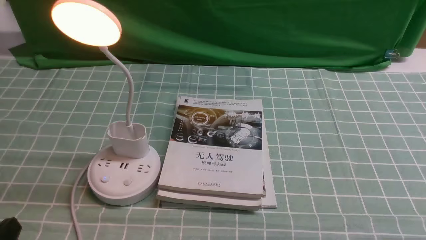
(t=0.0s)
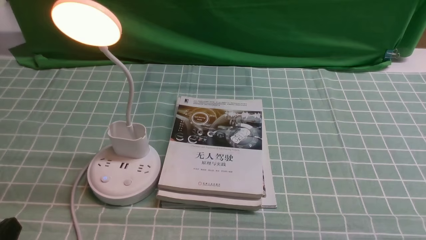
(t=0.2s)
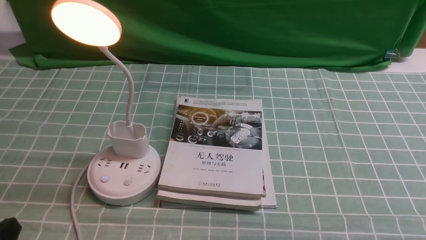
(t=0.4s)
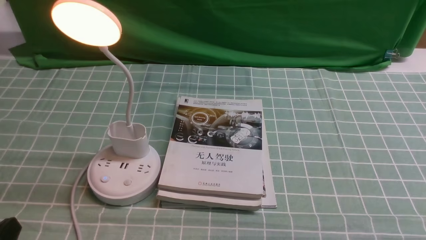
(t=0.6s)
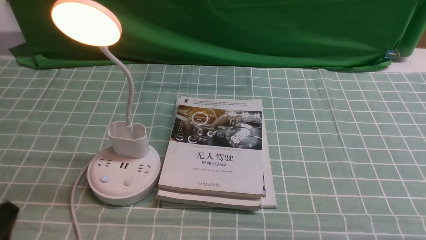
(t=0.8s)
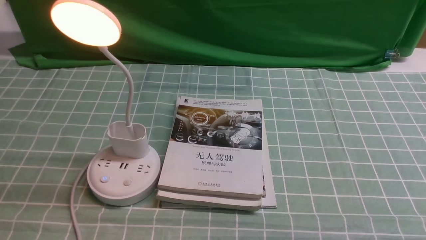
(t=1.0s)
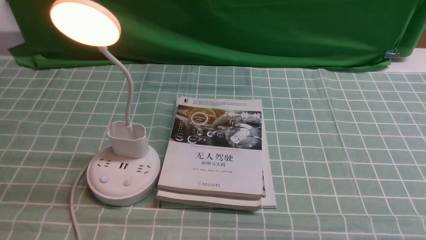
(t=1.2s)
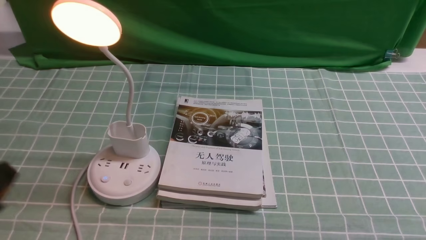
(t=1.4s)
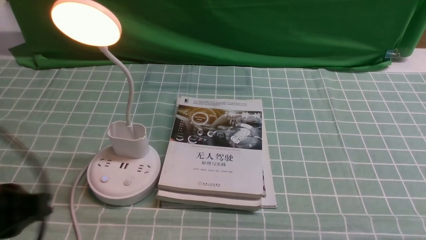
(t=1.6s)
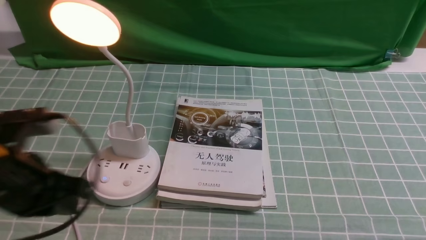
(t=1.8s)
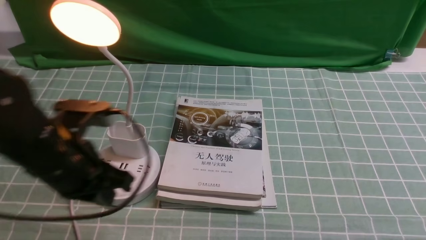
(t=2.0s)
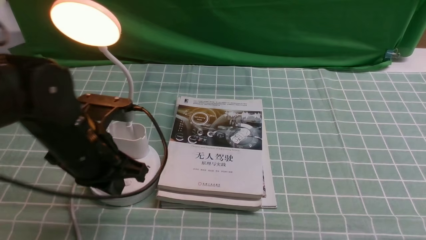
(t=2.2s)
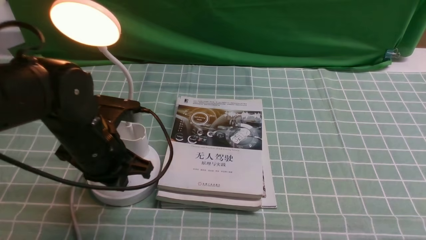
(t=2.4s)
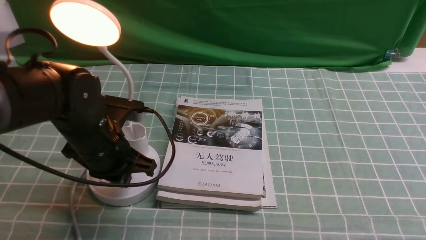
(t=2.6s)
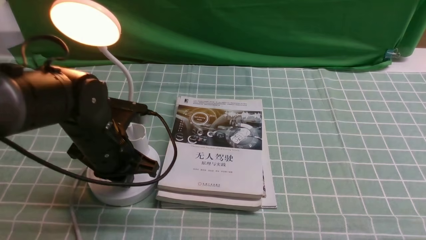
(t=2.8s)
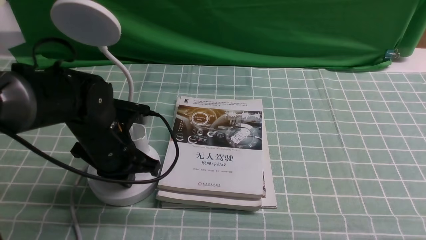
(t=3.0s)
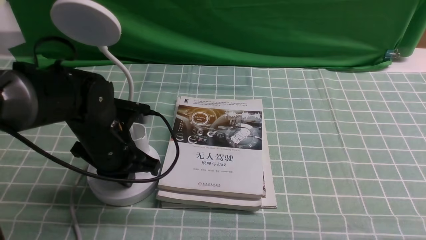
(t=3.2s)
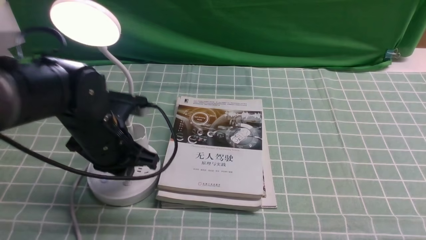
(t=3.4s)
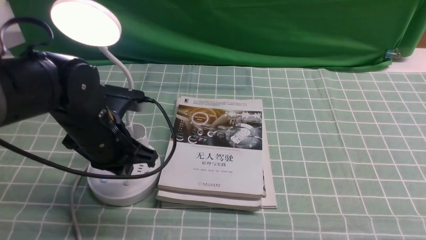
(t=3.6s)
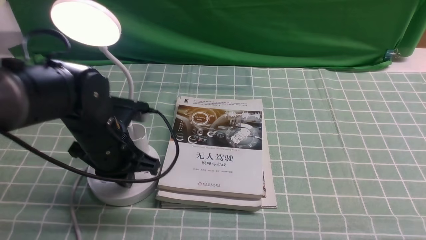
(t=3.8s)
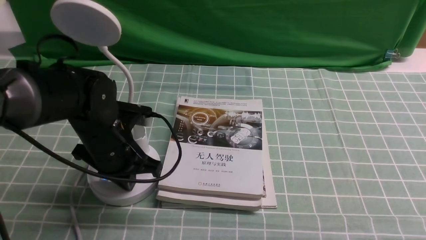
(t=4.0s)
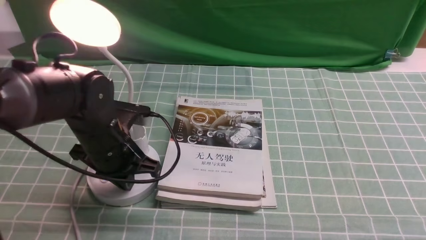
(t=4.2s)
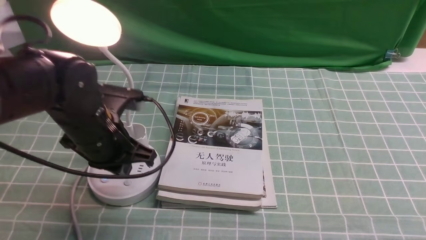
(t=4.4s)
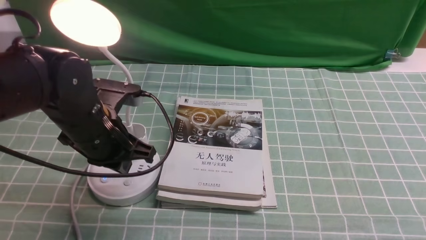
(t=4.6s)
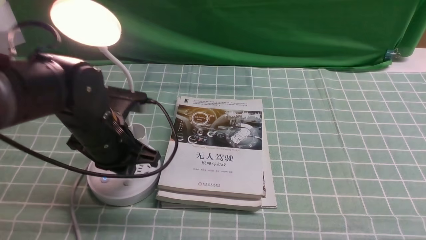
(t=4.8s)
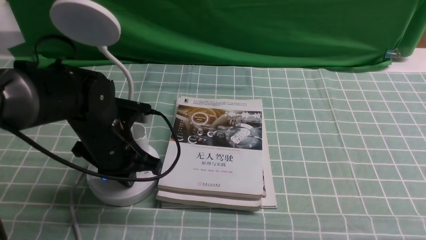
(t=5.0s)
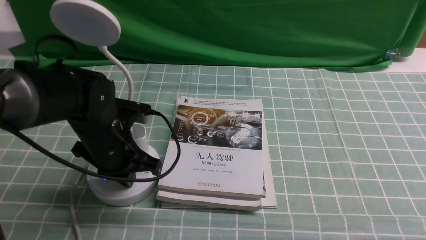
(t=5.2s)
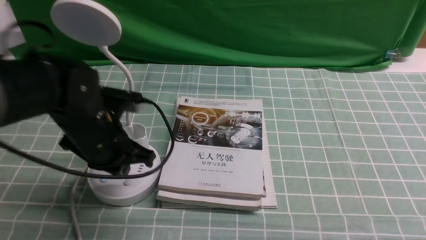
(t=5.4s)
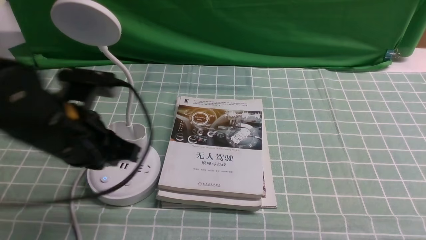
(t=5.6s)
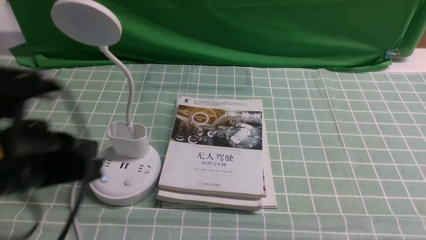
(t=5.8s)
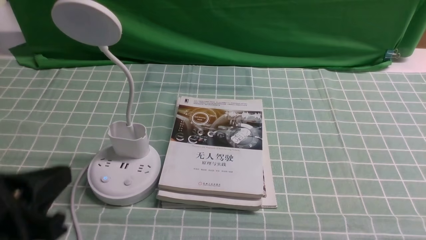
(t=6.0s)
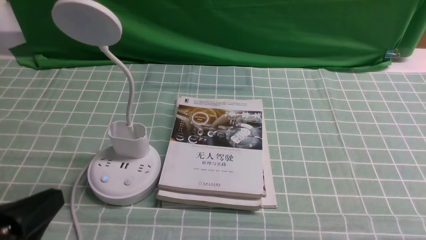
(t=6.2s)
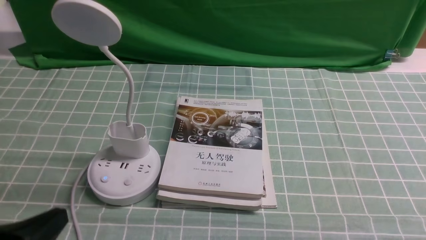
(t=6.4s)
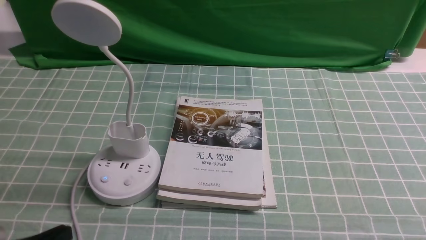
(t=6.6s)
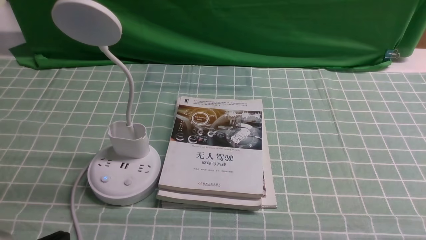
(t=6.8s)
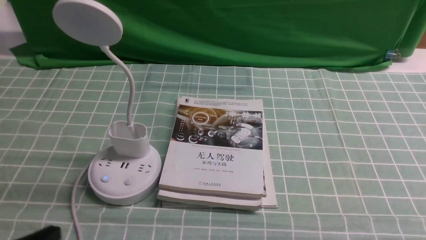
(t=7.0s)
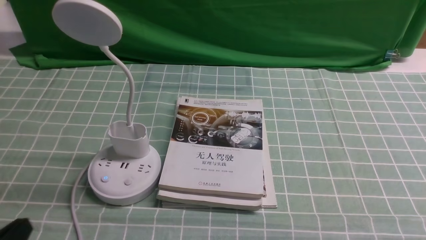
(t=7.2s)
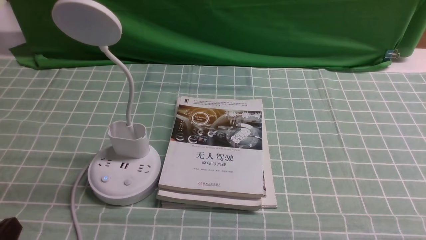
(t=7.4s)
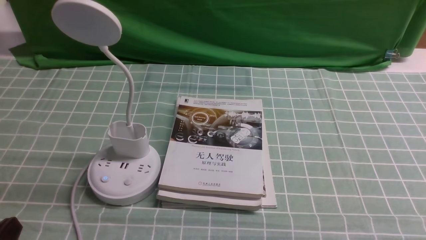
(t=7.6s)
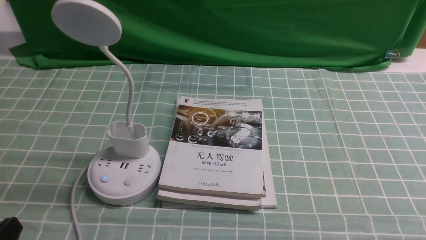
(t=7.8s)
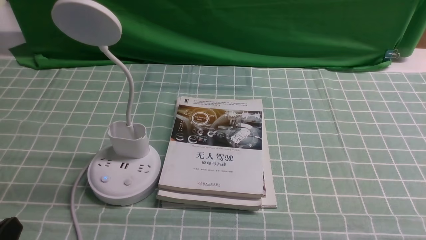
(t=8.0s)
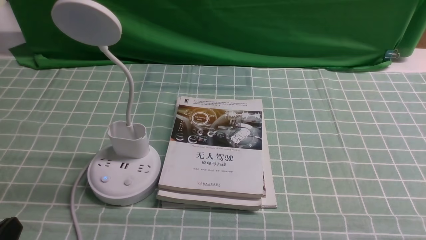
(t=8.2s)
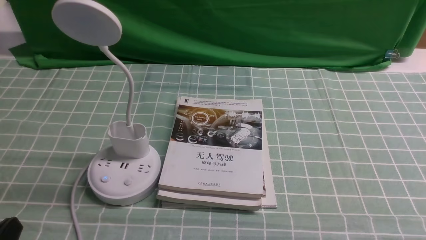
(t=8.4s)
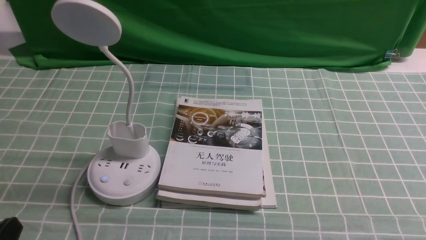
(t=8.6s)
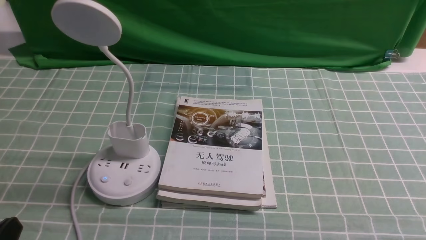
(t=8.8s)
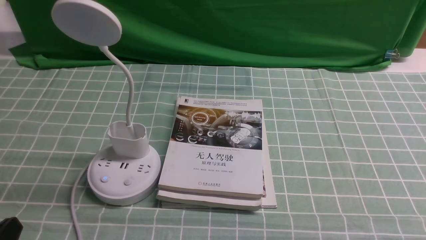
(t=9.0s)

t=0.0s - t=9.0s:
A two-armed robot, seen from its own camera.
Task of the whole recording: turn off the desk lamp on the blue coffee tablecloth by hand.
Step, t=0.0s - t=5.4s: use the left arm to press the button switch on the lamp holder.
t=1.6s - t=3.0s: The left gripper is displaced forward, downward and to the right by roughly 25 cm.
t=4.4s - t=6.0s: The left gripper is displaced backward and upward by roughly 20 cm.
t=6.0s - t=7.6s: The left gripper shifts roughly 15 cm downward and backward, and opens.
t=7.6s - t=9.0s: Both grippers stay about where they are.

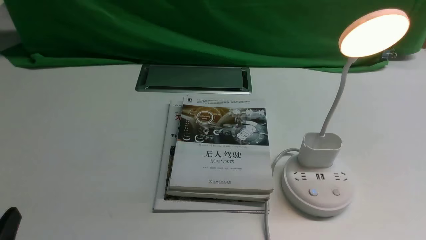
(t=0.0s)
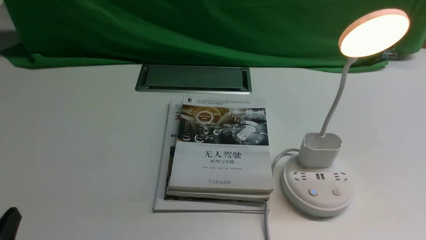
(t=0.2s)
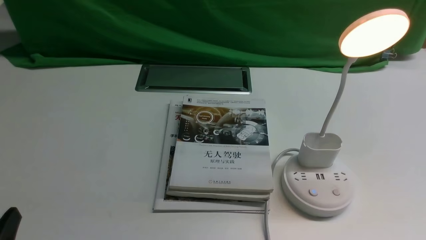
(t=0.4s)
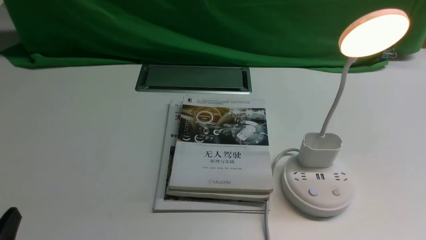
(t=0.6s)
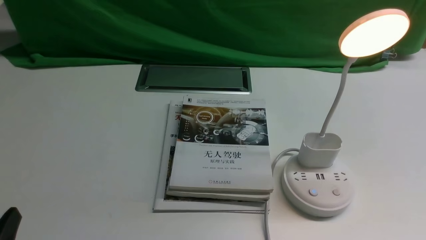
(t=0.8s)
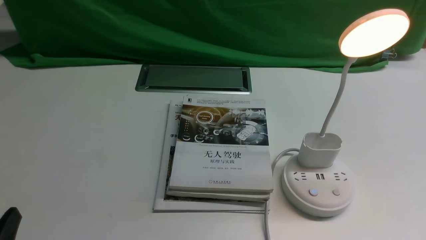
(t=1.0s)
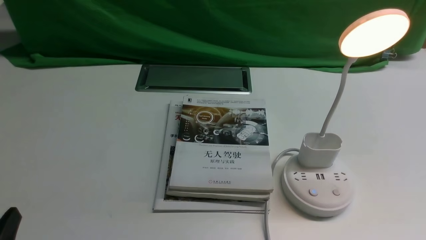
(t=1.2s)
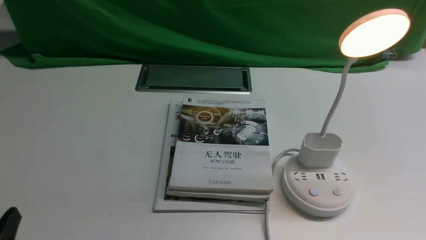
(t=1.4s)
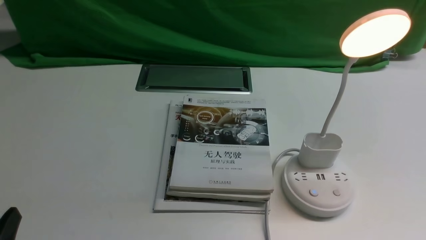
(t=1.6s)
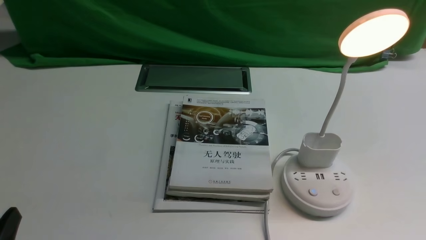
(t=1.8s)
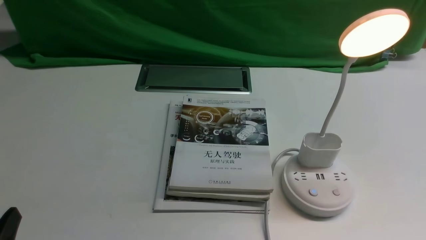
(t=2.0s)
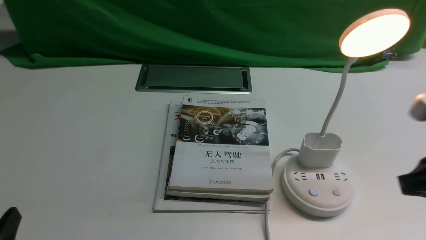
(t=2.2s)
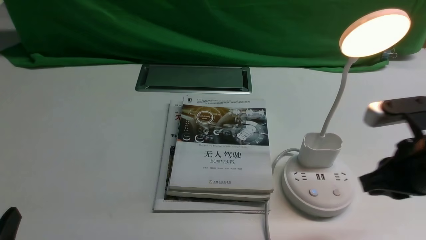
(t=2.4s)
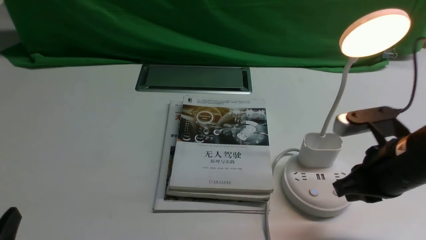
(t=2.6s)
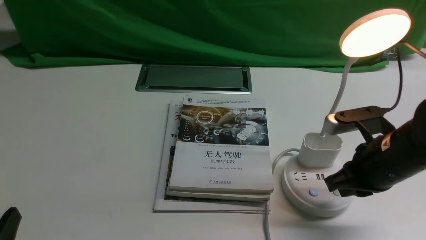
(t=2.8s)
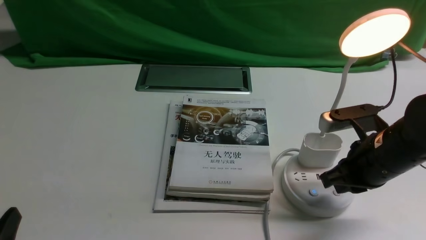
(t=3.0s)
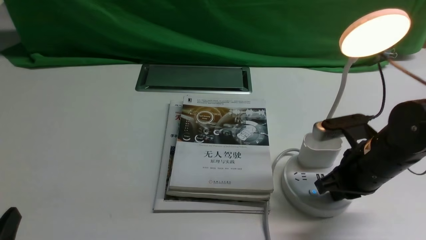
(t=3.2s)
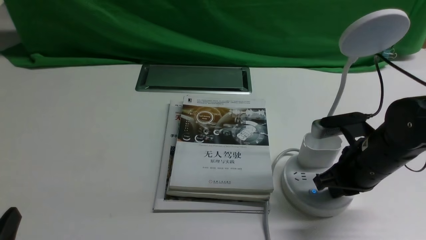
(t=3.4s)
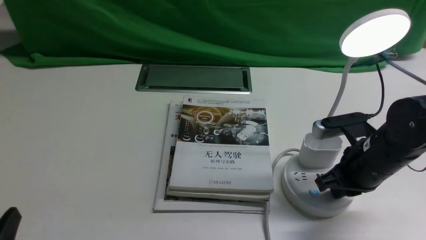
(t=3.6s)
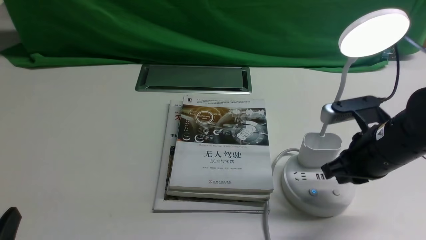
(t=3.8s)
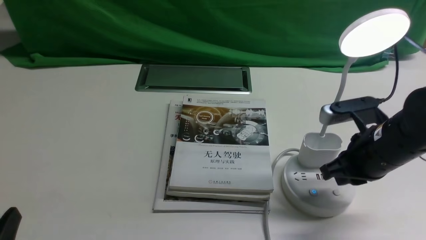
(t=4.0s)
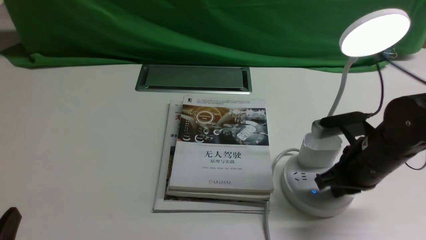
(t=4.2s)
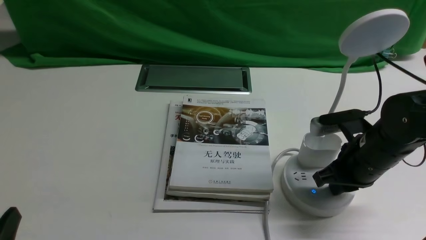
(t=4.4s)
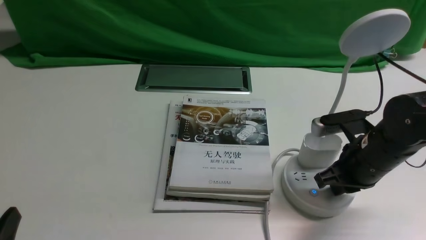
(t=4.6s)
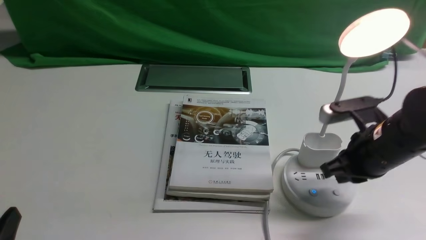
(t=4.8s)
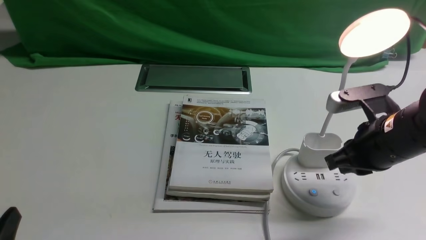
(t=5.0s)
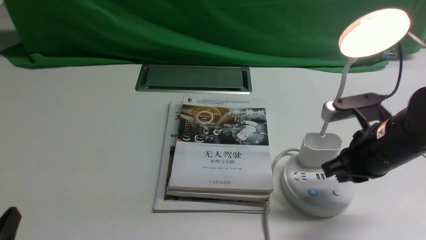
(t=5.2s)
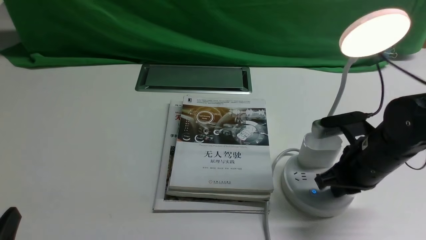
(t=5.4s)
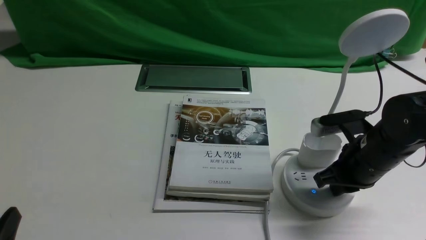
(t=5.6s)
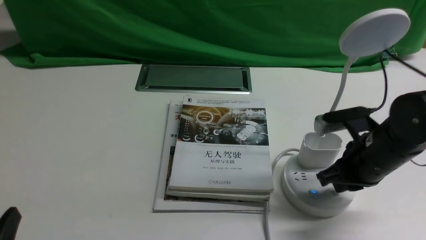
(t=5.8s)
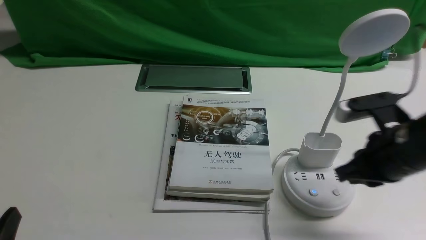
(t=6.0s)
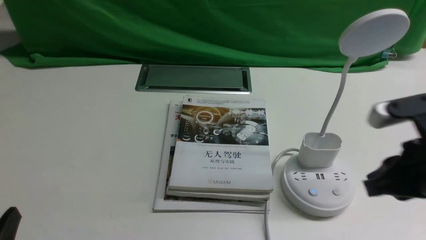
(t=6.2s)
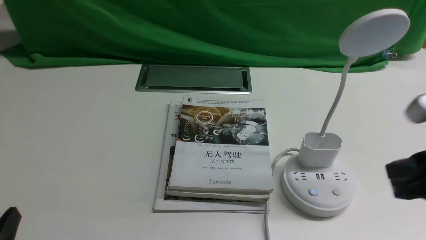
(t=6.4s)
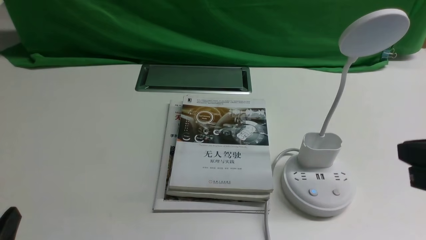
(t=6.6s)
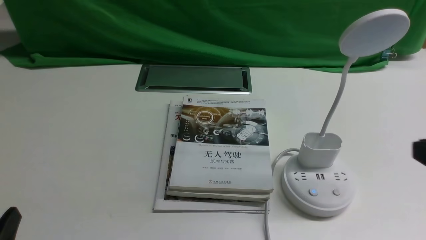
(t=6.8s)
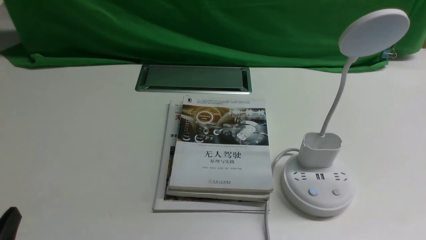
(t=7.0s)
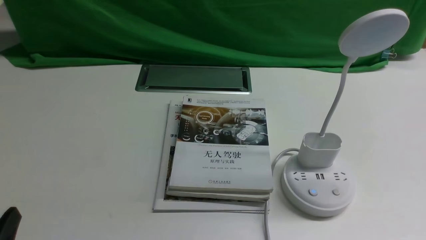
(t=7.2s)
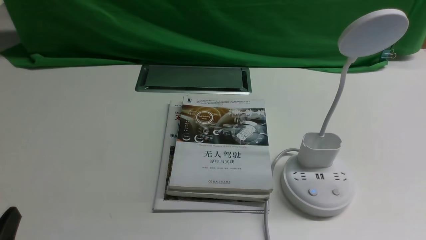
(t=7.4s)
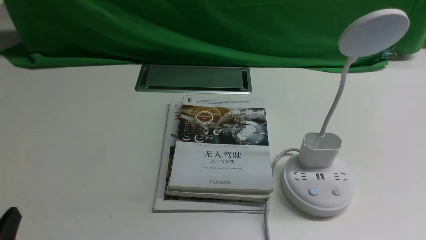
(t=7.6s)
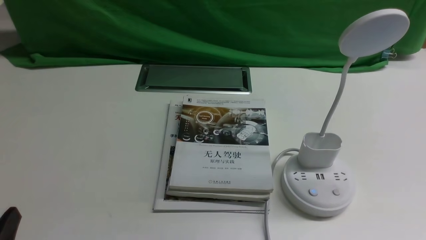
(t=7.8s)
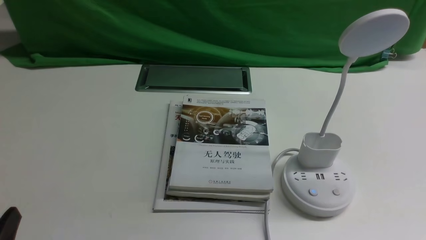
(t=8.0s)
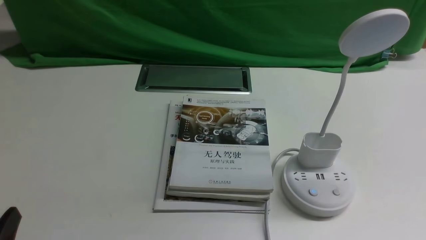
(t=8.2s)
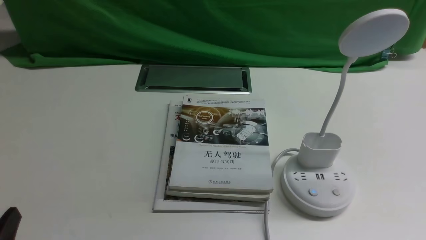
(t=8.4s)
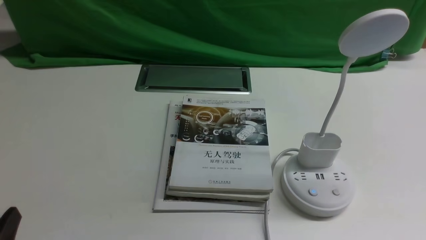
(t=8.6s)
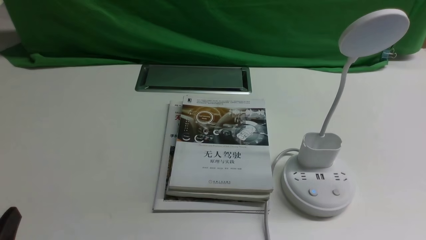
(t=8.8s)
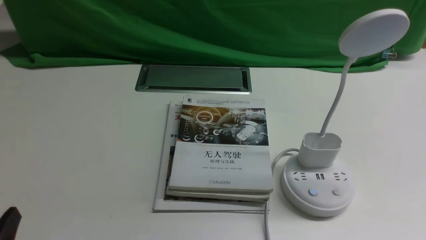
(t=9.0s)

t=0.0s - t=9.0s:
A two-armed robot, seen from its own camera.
Task of the whole recording: turn off the desk lamp on the white desktop by hand.
Step, t=0.0s - t=5.8s: use the right arm to press the button switch on the lamp holder.
t=1.6s - t=3.0s: The right gripper is displaced forward and to the left by some 20 cm, and opens.
t=3.0s - t=4.4s: There are only small adjustments of the grippers.
t=4.4s - t=6.0s: The right gripper goes up and down, roughly 5 cm each way, reversing 2 times.
t=6.0s - t=7.6s: The right gripper goes about 20 cm backward and to the right.
t=7.6s - t=9.0s: Both grippers stay about where they are.
